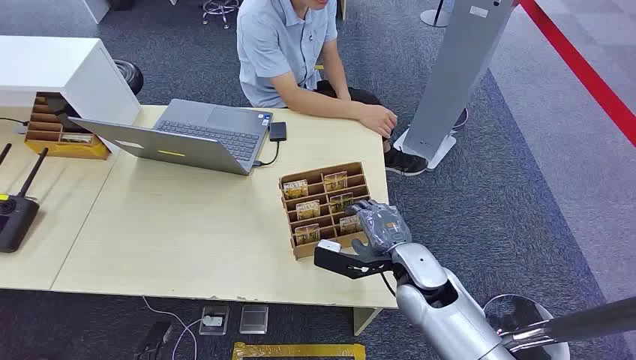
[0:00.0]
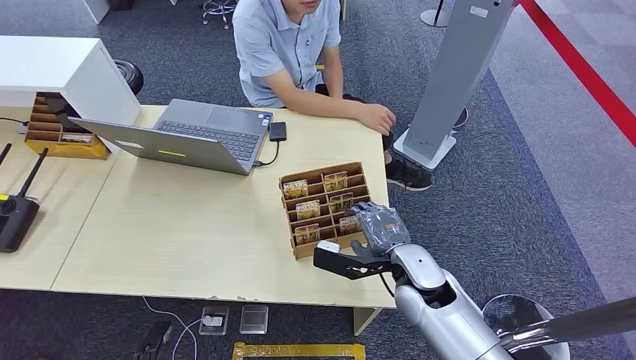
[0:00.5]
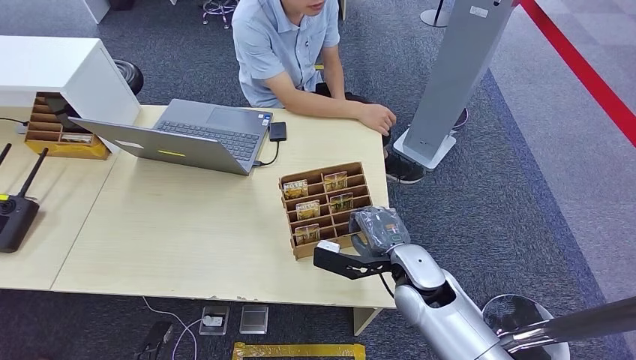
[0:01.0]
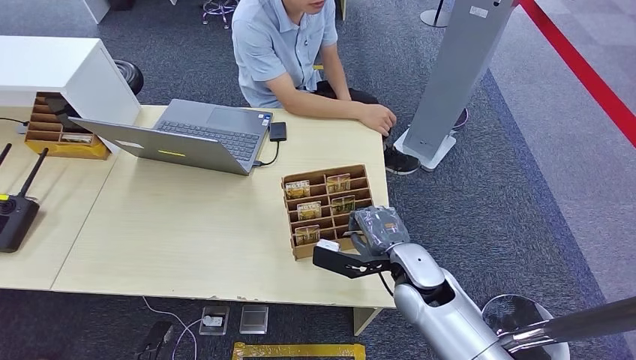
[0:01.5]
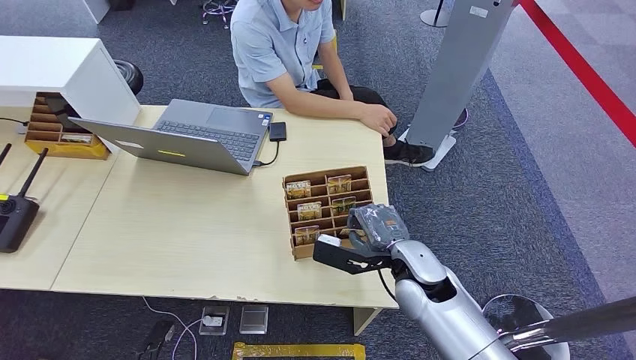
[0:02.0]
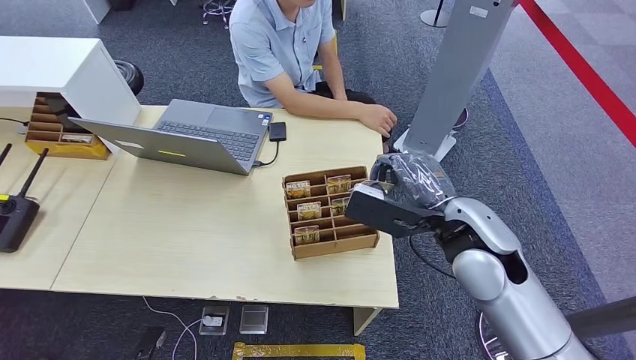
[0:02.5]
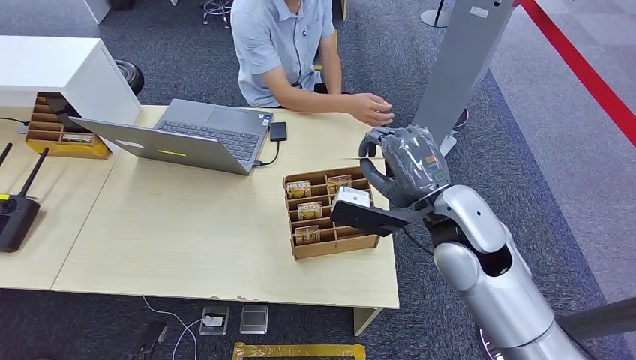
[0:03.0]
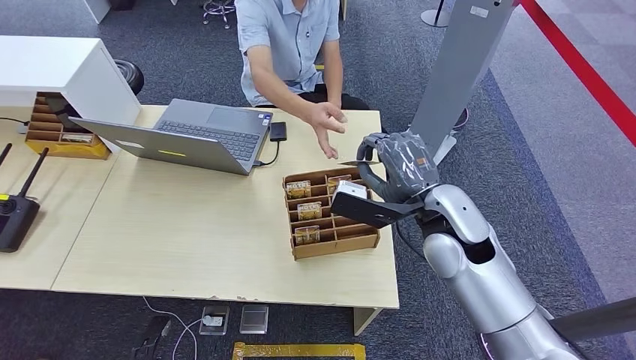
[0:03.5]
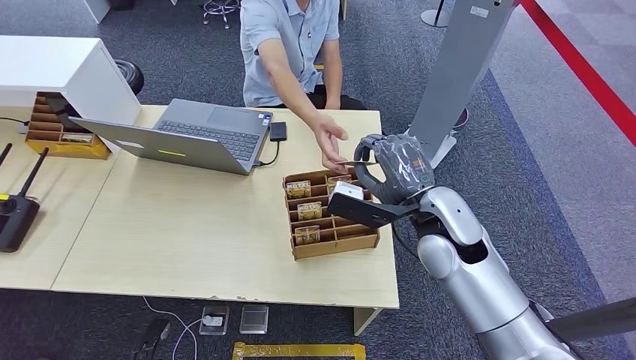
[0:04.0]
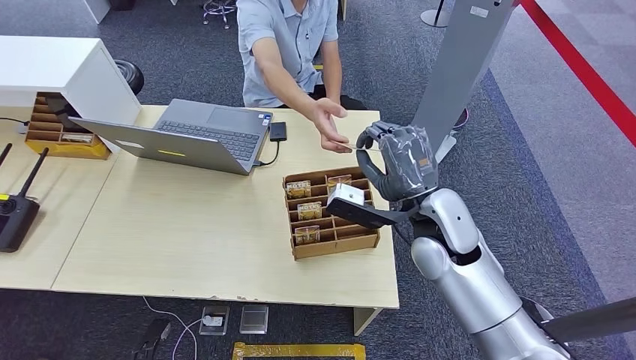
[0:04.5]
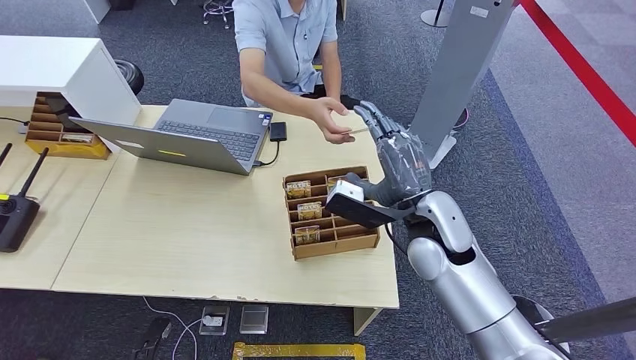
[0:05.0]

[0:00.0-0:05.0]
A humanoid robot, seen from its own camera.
Step, 0:00.0 to 0:02.0: Pick up the key card from the card box.
Step, 0:03.5 to 0:05.0: Hand the key card to the target.
0:02.5 to 0:05.0: The right hand moves approximately 5 cm.
